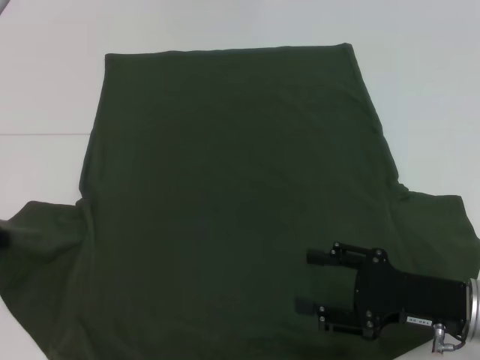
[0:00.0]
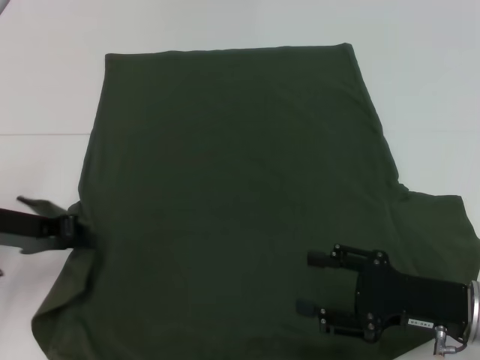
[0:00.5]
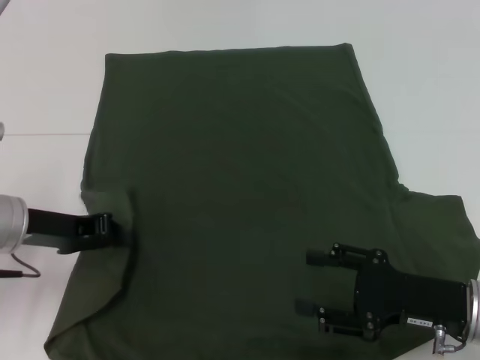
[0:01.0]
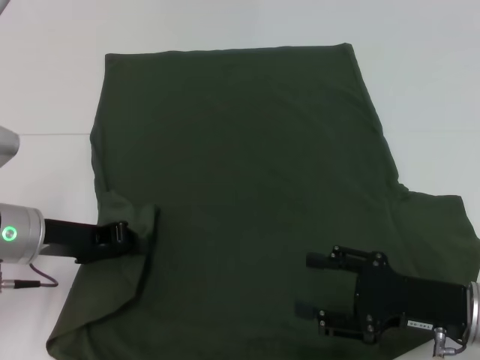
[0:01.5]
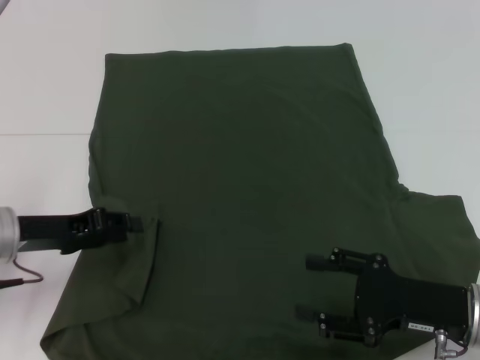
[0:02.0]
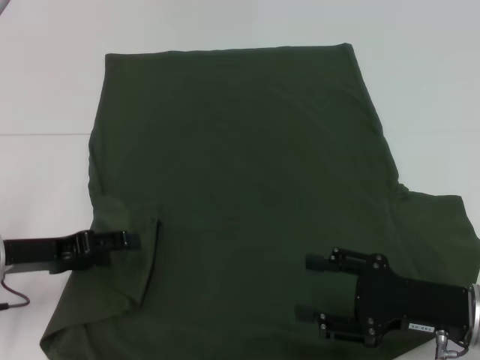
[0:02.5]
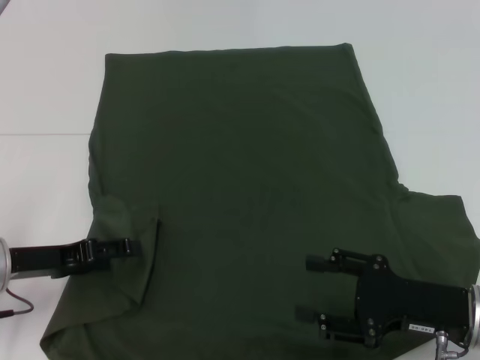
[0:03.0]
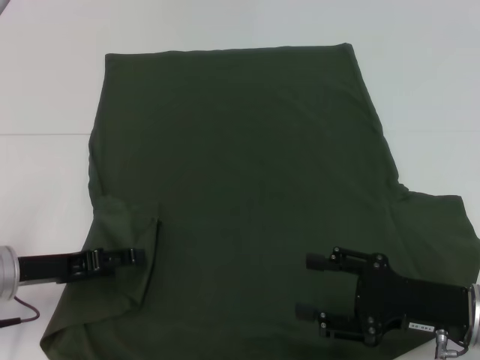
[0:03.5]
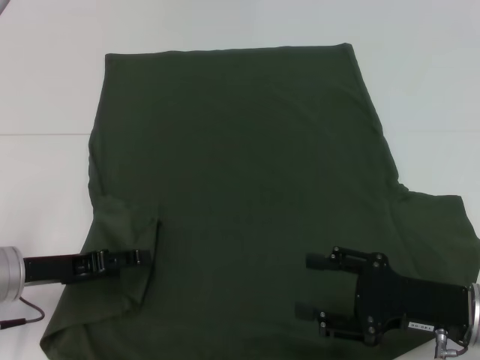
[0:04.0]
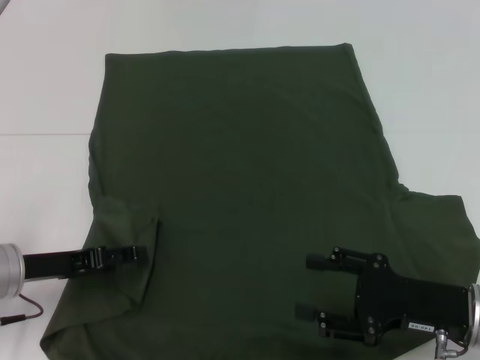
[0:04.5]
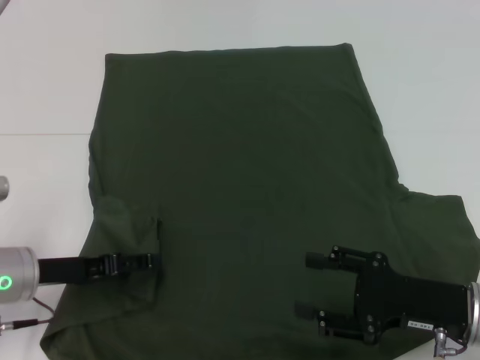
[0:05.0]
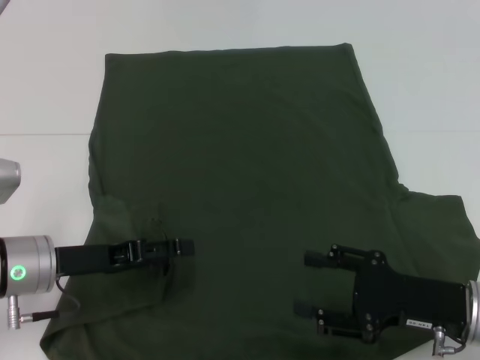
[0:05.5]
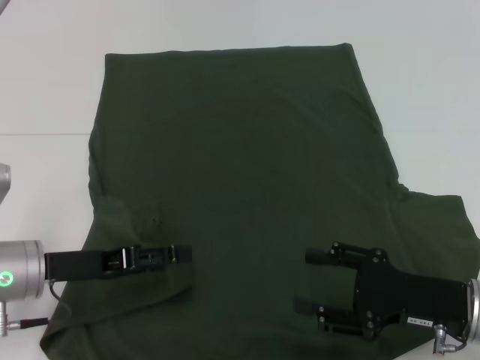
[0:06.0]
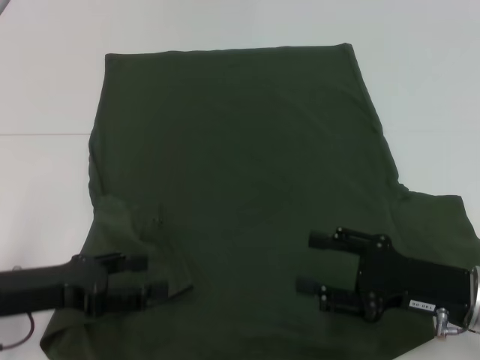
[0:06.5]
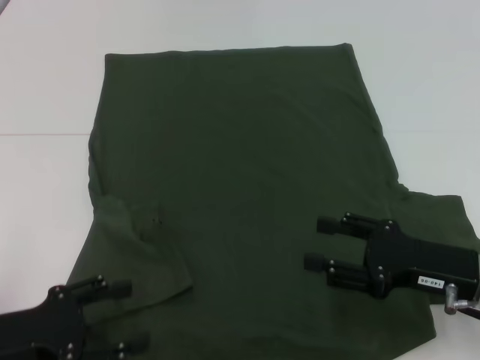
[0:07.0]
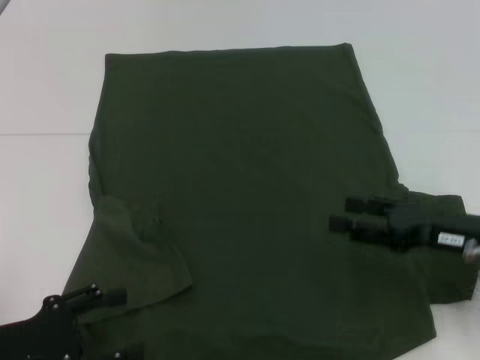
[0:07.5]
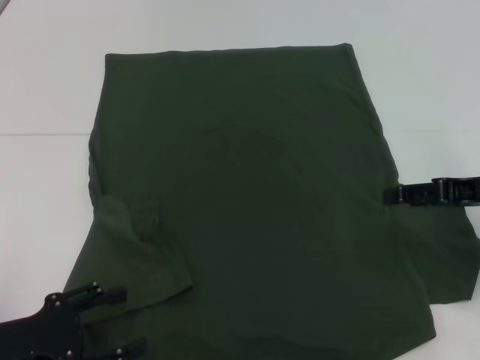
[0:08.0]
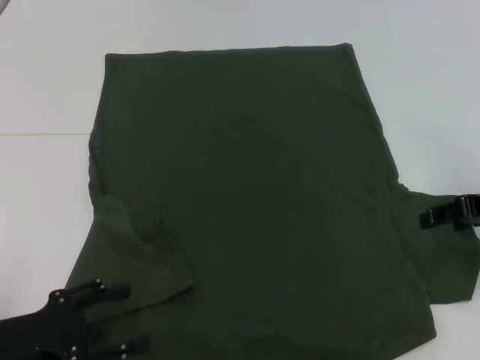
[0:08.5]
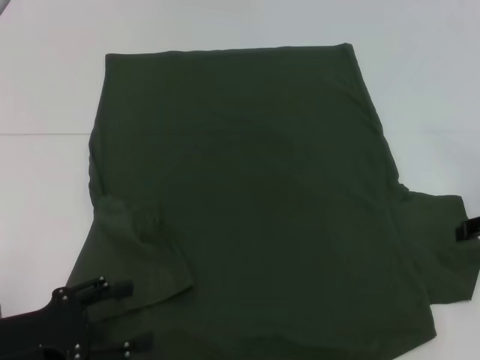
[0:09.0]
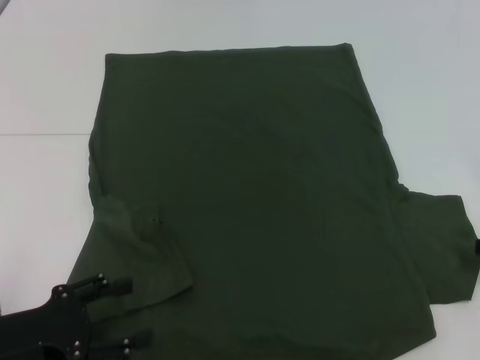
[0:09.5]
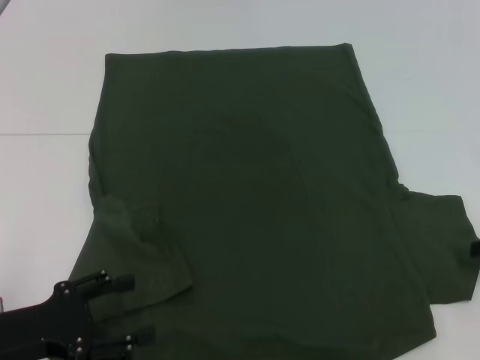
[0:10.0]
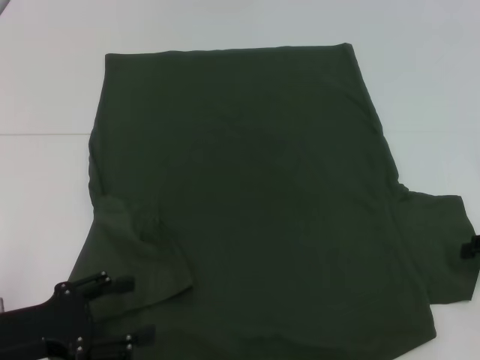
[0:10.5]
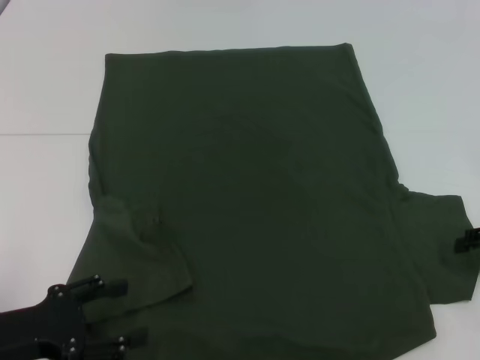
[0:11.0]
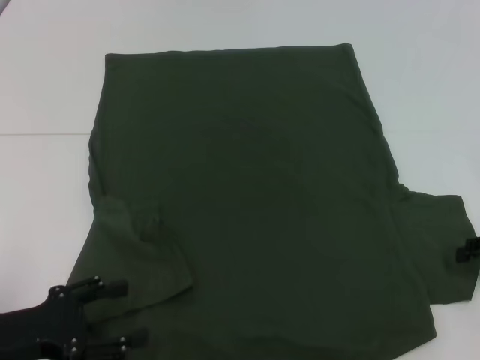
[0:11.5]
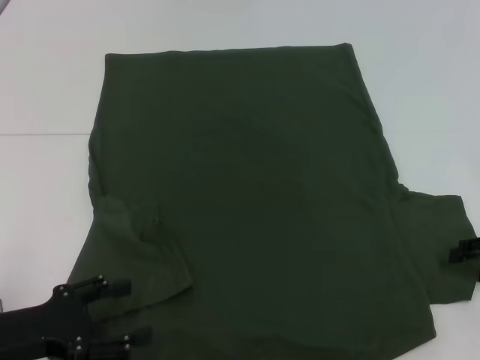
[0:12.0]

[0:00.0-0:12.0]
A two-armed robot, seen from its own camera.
Step, 0:00.0 to 0:06.5: Fold the bottom left sleeve with your left hand.
0:00.0 to 0:02.0: The left gripper goes some 10 cm to the right.
0:02.0 to 0:04.0: The left gripper opens its fingers.
0:04.0 to 0:06.0: The grippers stay close to where they were, moving slightly.
0:06.0 to 0:08.0: The left gripper shifts roughly 10 cm backward. The right gripper moves upward, forward and to the right, approximately 15 cm.
0:08.0 to 0:10.0: The right gripper is displaced to the right by roughly 10 cm.

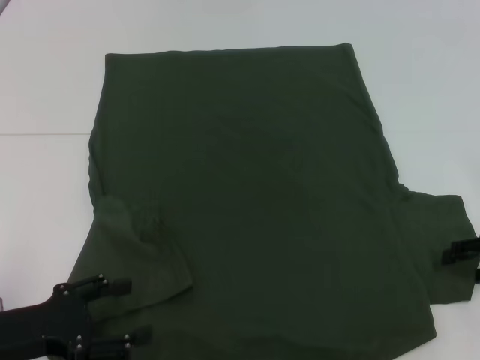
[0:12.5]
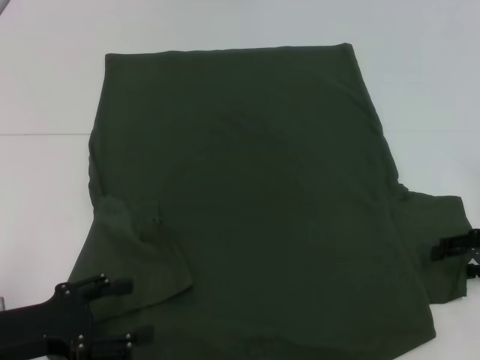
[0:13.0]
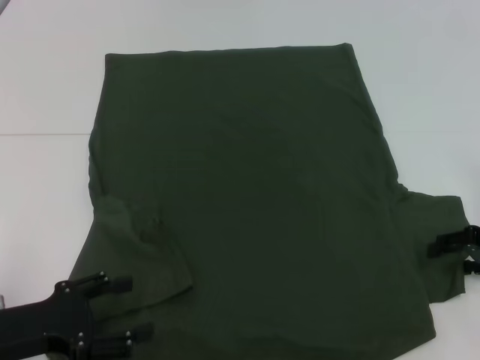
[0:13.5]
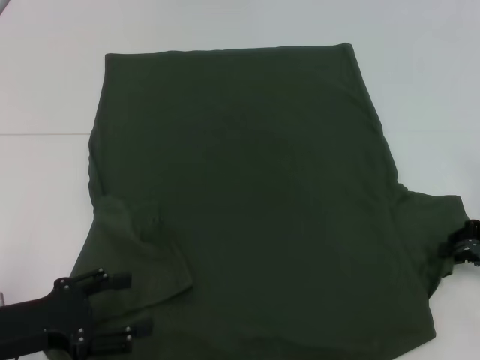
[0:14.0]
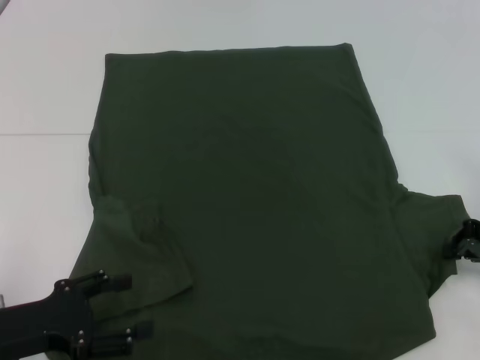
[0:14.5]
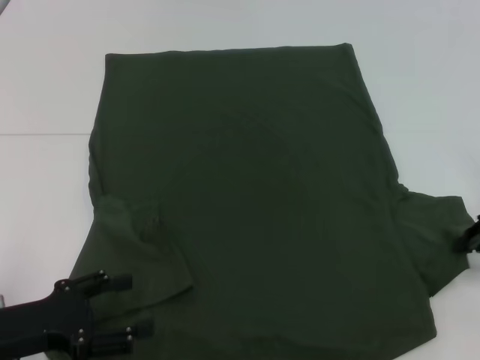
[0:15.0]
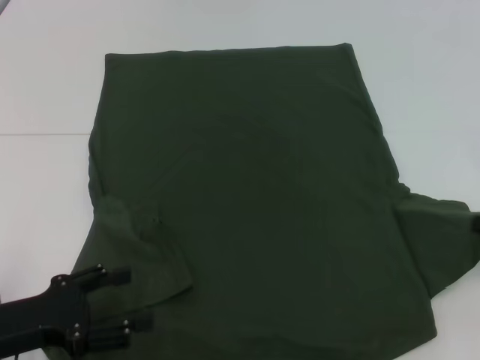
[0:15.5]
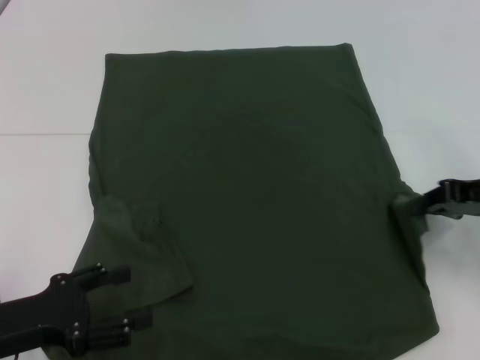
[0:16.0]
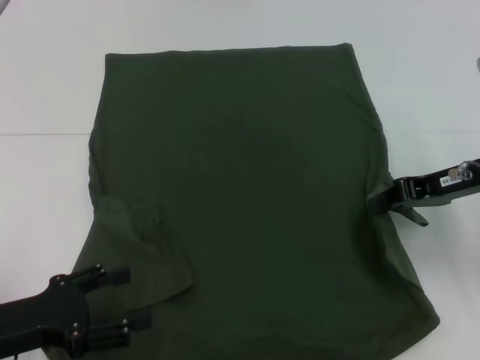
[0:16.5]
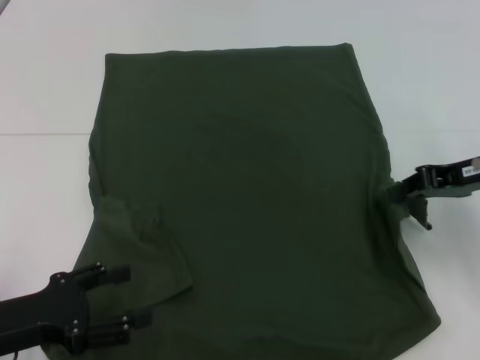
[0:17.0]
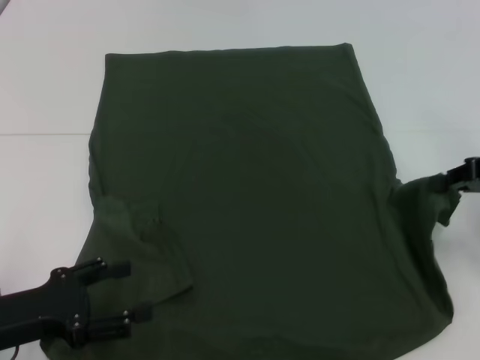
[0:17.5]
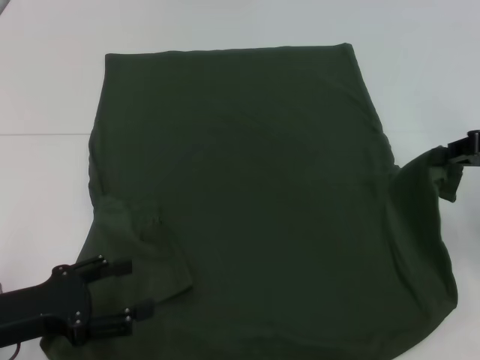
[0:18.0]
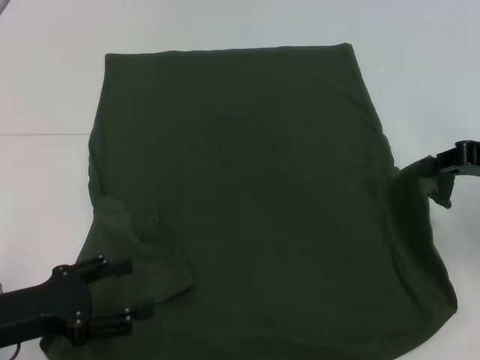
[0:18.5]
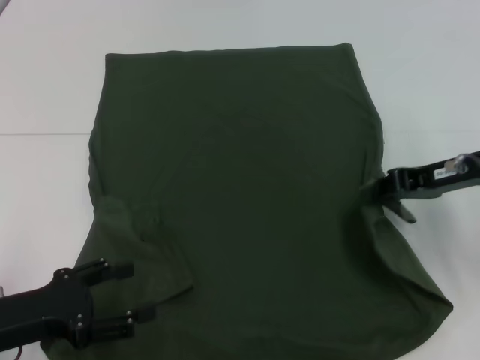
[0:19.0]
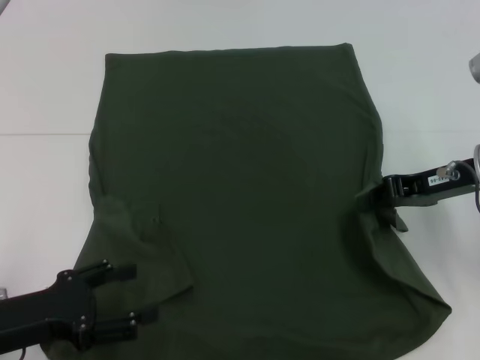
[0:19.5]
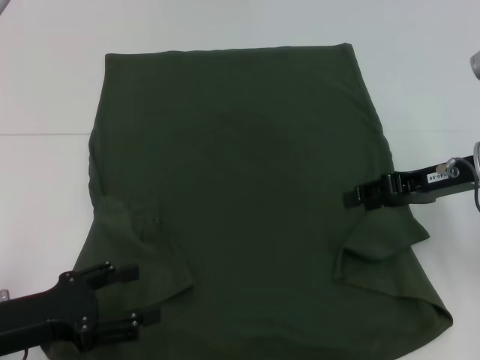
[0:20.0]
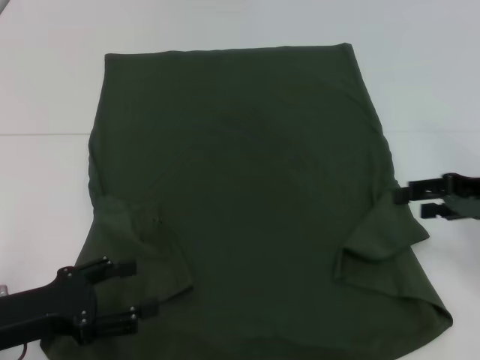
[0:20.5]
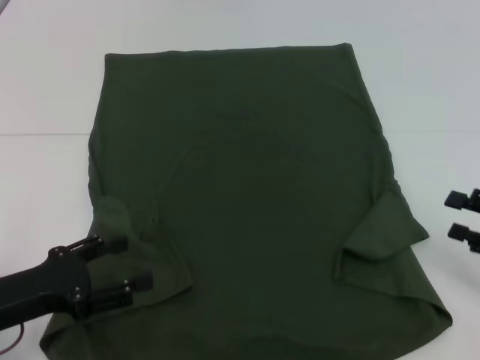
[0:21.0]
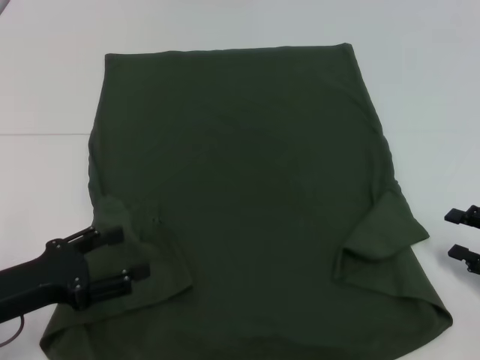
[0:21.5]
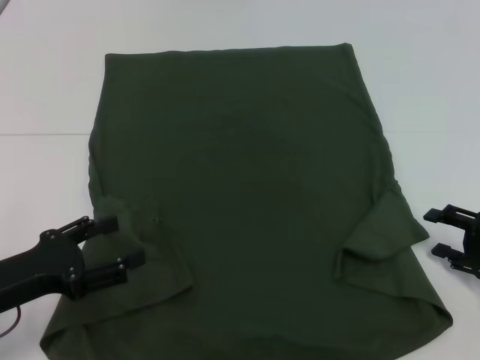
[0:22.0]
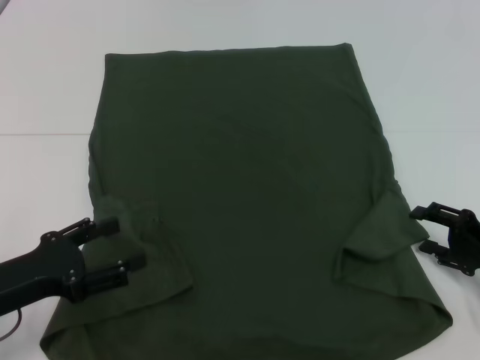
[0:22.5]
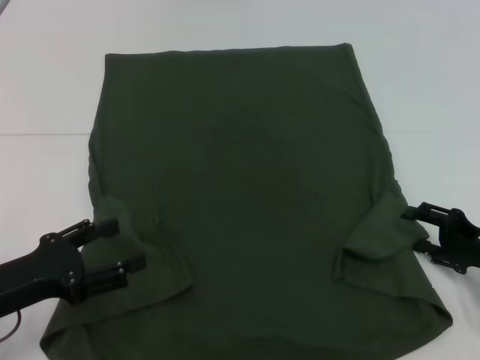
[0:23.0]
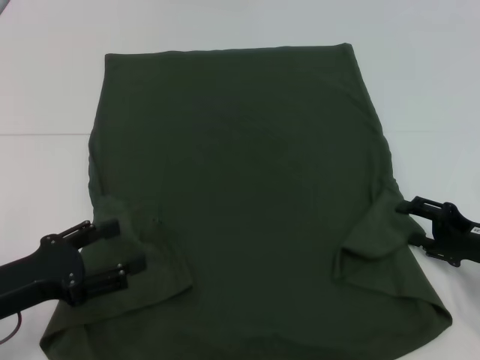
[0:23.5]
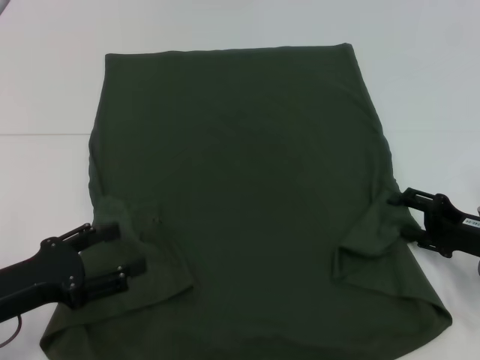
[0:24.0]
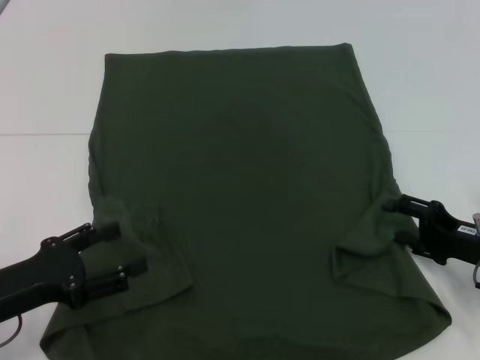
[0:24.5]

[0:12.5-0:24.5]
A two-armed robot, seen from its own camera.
0:12.5 to 0:14.5: The right gripper closes up.
0:14.5 to 0:16.5: The right gripper shifts approximately 10 cm to the left and upward.
0:16.5 to 0:18.5: The right gripper moves to the right, some 5 cm.
0:18.5 to 0:20.5: The right gripper opens up.
0:20.5 to 0:22.5: The right gripper heads downward, covering roughly 10 cm.
0:22.5 to 0:24.5: The grippers stay close to where they were, moving slightly.

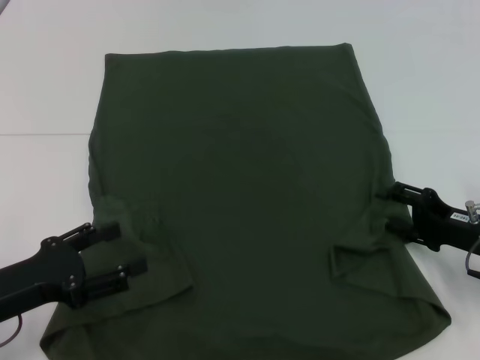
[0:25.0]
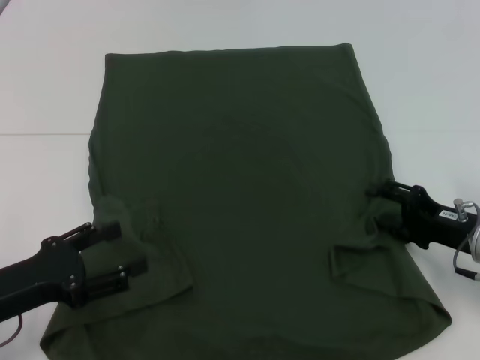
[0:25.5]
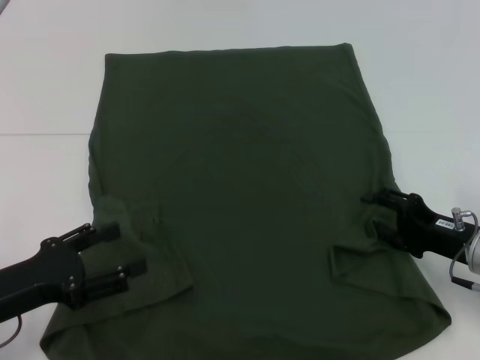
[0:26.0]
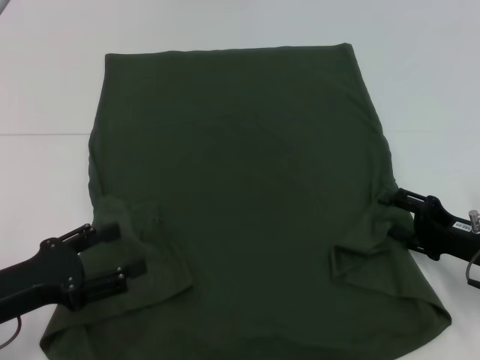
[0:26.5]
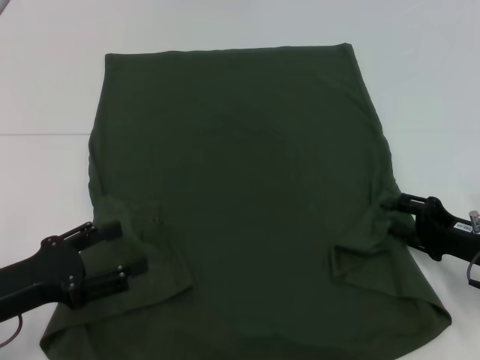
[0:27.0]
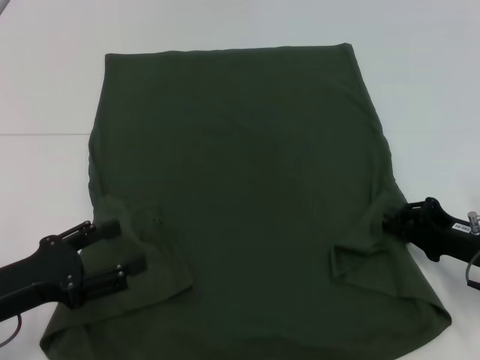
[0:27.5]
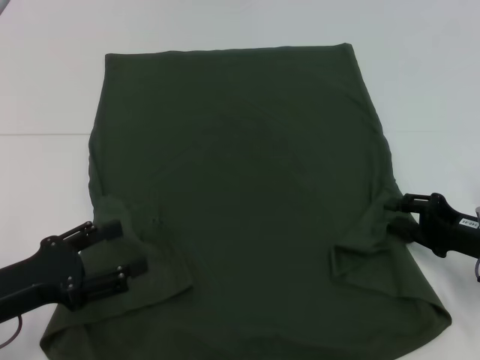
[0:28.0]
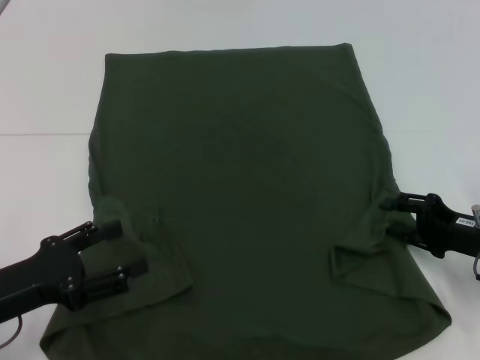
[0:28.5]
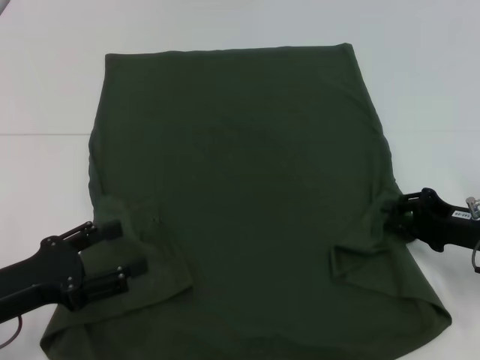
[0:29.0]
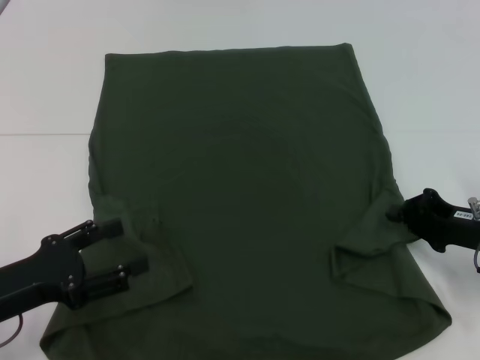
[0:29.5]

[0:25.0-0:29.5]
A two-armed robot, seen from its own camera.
0:25.0 to 0:27.0: The grippers move only a little.
0:27.0 to 0:29.5: The right gripper closes up.
